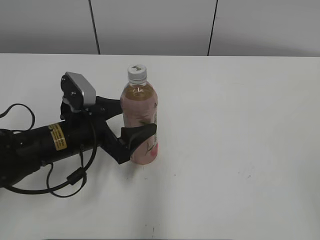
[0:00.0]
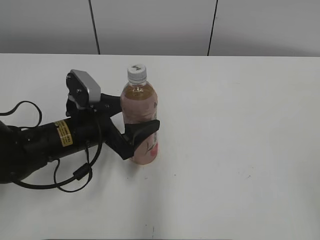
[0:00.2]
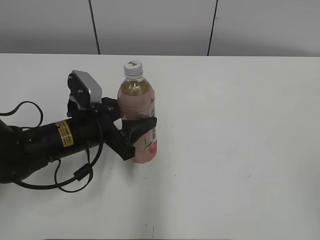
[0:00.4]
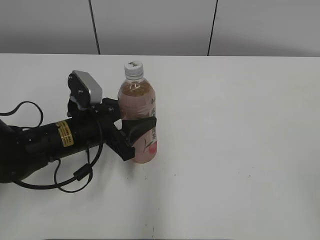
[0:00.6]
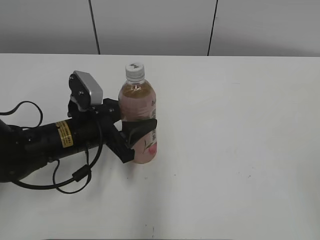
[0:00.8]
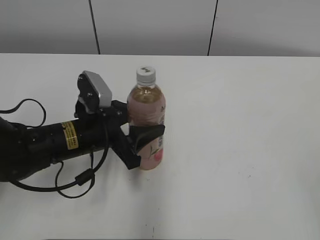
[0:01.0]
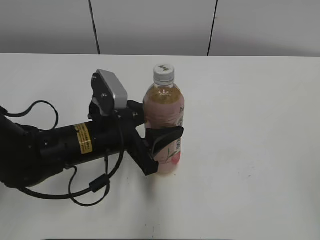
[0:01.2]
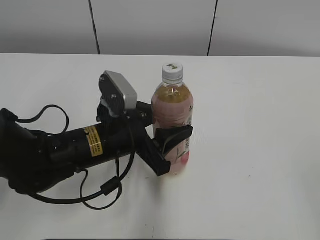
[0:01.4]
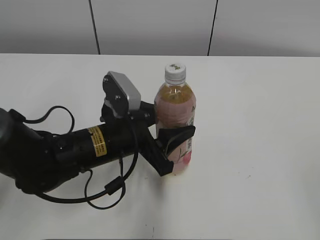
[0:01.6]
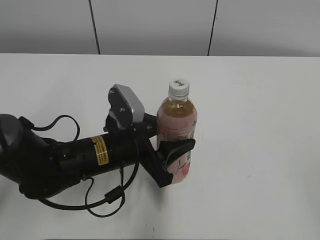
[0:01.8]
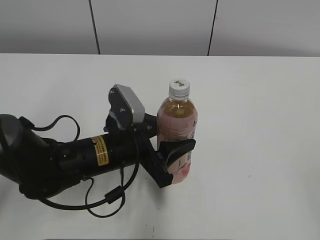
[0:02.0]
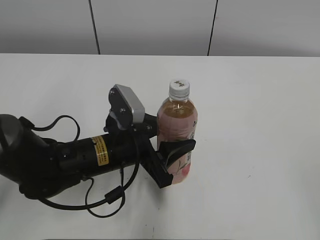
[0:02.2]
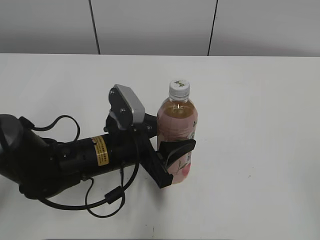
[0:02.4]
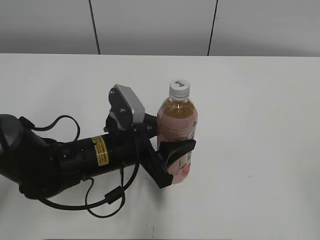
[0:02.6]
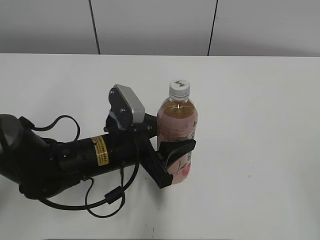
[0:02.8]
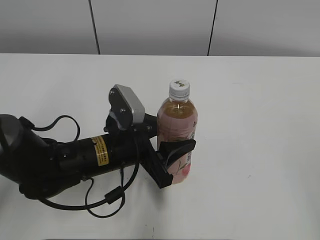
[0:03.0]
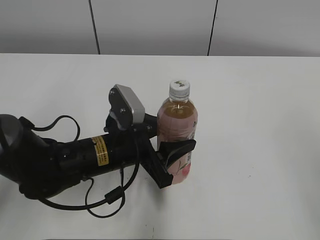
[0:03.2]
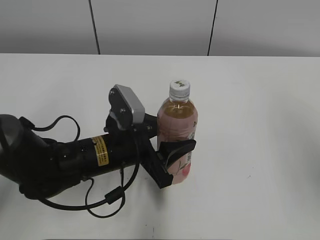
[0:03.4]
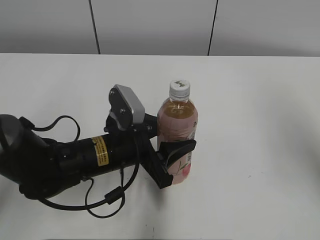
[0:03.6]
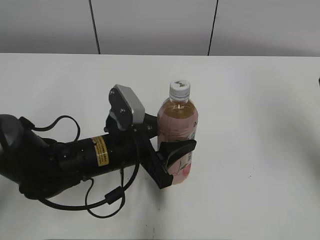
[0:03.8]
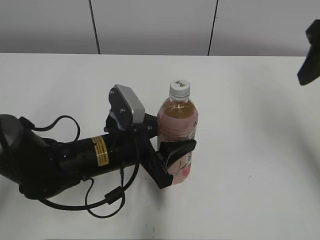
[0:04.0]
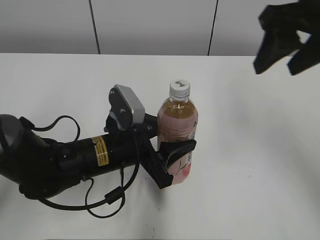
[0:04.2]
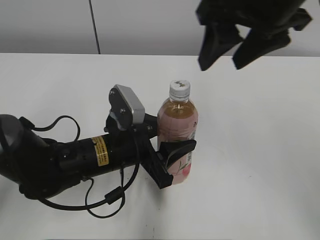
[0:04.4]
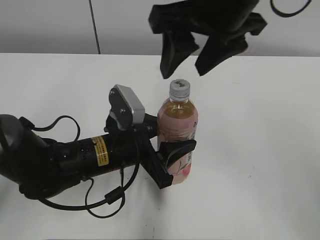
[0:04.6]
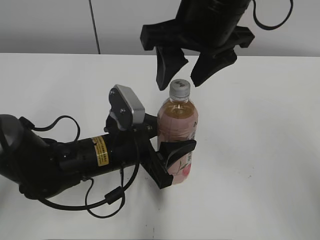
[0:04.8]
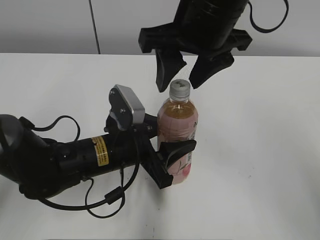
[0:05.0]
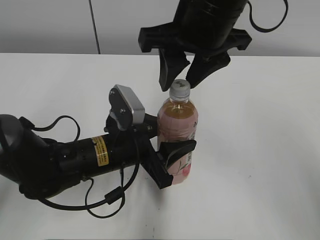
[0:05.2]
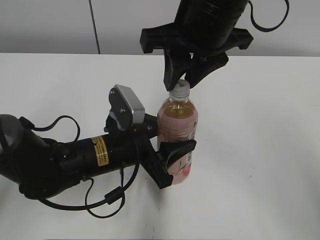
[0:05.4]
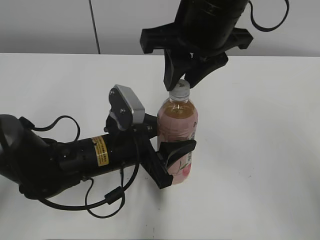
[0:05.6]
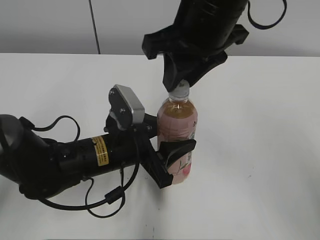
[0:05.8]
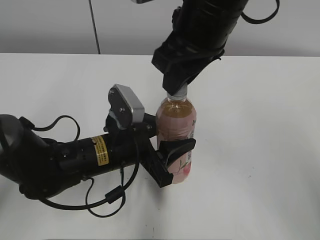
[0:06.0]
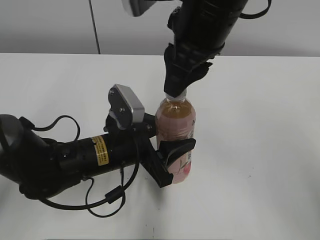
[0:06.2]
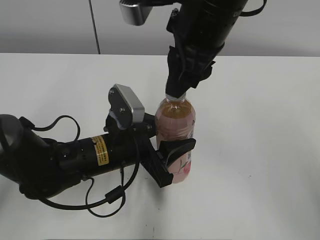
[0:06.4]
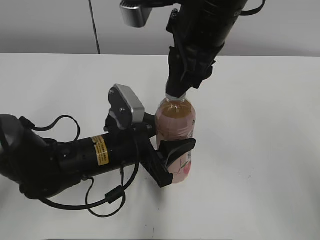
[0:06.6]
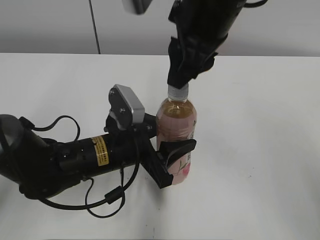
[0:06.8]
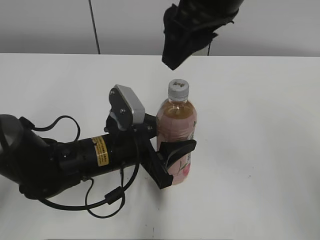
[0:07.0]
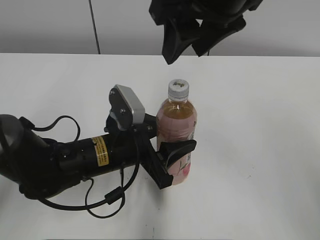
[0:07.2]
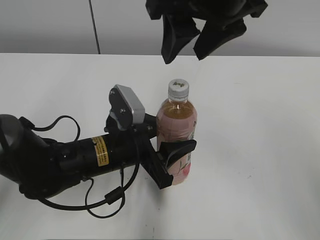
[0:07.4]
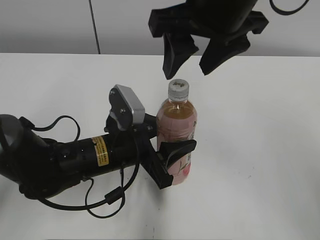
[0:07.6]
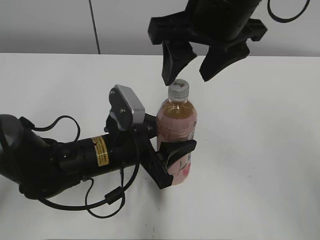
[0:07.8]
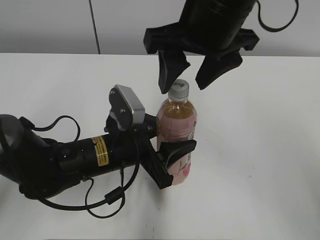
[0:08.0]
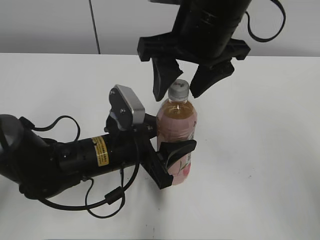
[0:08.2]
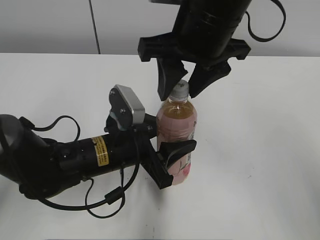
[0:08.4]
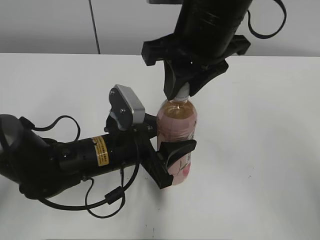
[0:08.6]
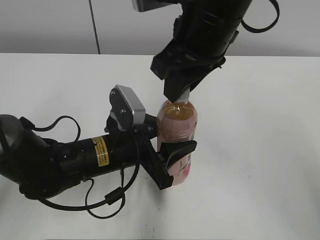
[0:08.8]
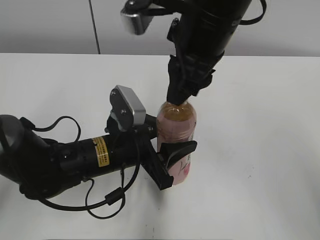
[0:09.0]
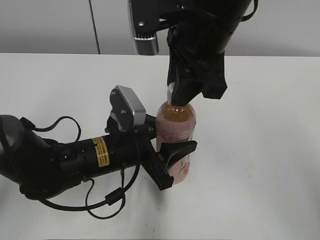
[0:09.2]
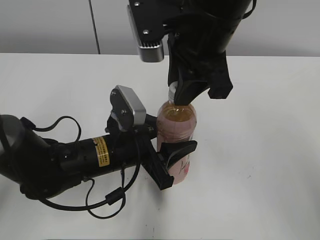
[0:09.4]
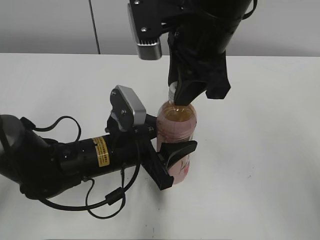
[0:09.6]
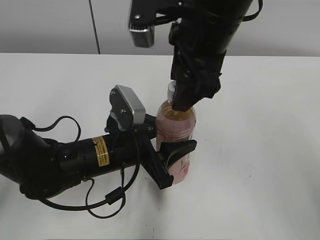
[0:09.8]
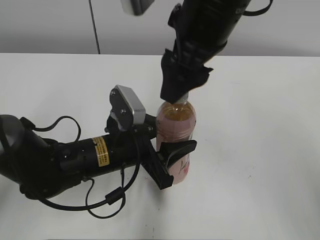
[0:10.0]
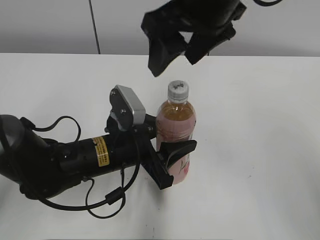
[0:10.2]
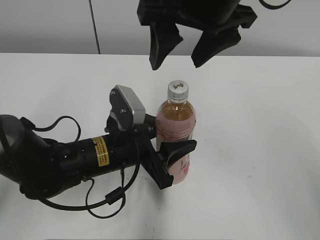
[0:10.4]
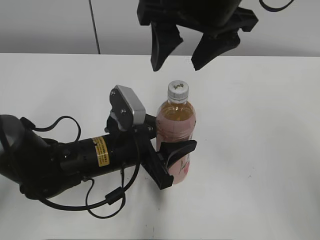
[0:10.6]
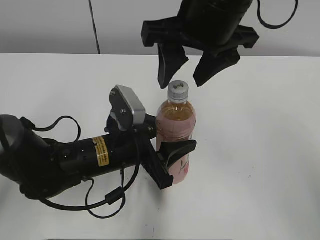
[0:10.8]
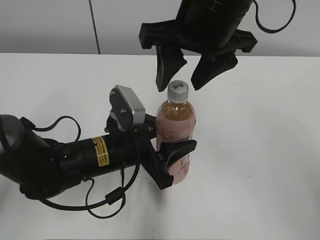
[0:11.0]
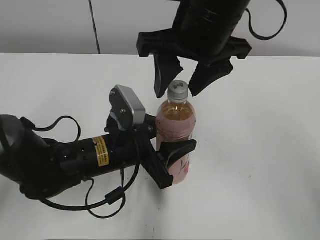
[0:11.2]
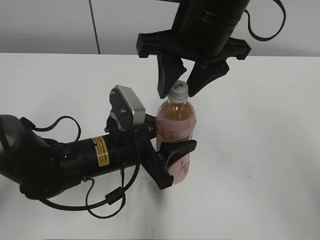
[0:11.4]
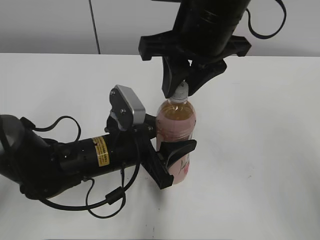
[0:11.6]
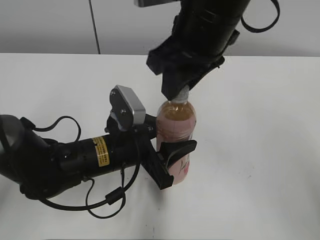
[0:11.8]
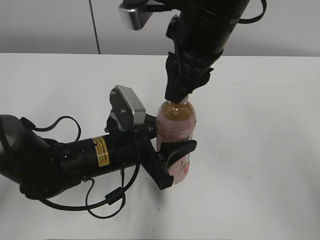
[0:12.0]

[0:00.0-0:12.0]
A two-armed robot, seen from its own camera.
Step, 0:00.8 to 0:05.0: Move the Peach Oolong Tea from left to right.
0:00.0 to 0:01.6: The left gripper goes approximately 5 cm to the right, and closes its fingers.
0:01.6 to 0:03.0: The grippers make only small movements.
0:03.0 to 0:04.4: The right gripper is displaced forward and to the left by approximately 35 cm.
0:04.4 to 0:06.0: The right gripper is displaced to the left by roughly 5 cm, and closes its fingers.
0:06.0 to 0:07.6: The right gripper opens up.
0:07.6 to 0:09.0: The right gripper closes up.
0:09.0 to 0:10.4: The right gripper opens up.
0:10.4 to 0:12.0: The right gripper closes.

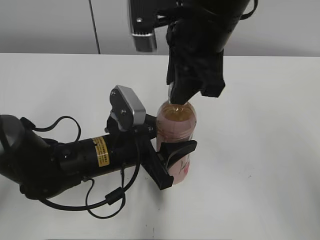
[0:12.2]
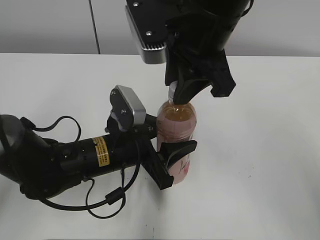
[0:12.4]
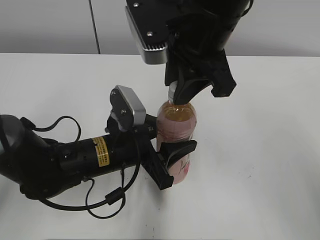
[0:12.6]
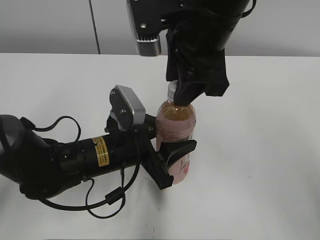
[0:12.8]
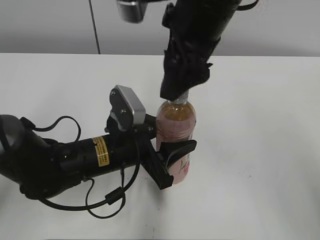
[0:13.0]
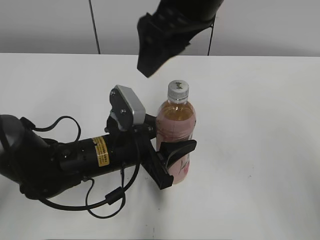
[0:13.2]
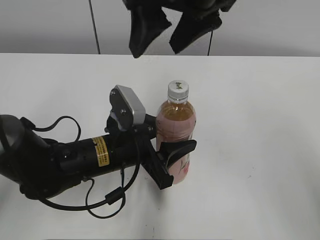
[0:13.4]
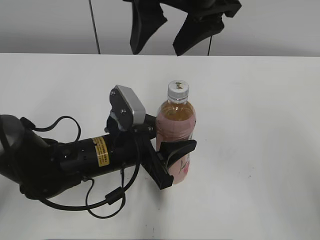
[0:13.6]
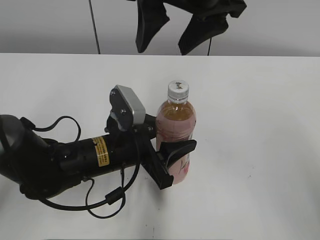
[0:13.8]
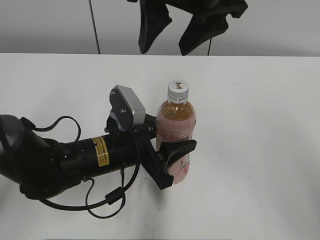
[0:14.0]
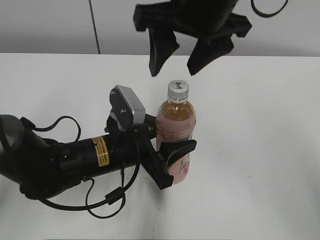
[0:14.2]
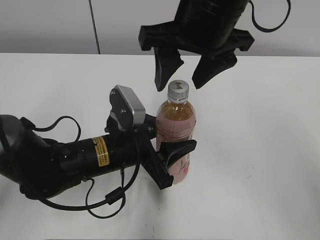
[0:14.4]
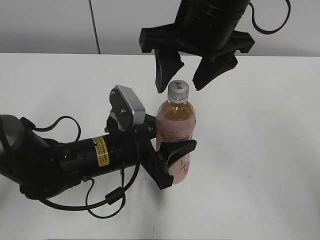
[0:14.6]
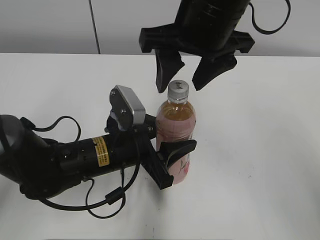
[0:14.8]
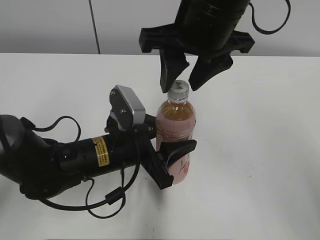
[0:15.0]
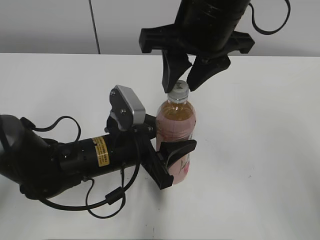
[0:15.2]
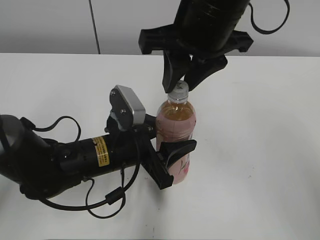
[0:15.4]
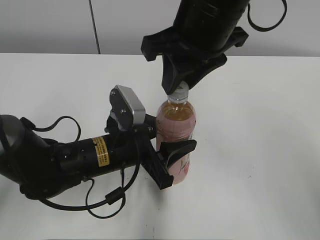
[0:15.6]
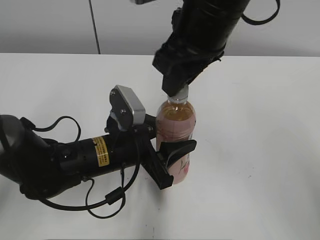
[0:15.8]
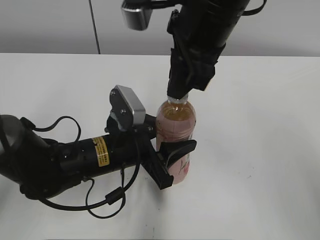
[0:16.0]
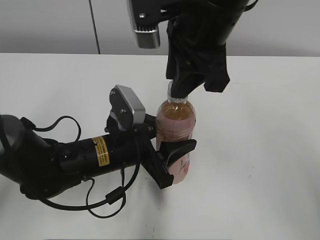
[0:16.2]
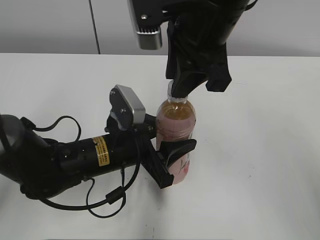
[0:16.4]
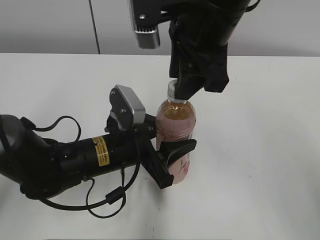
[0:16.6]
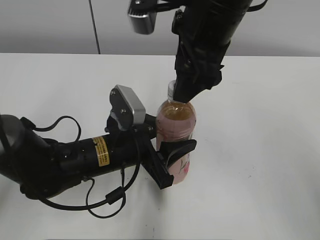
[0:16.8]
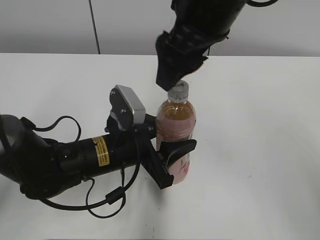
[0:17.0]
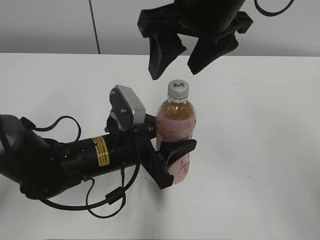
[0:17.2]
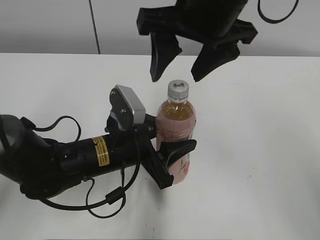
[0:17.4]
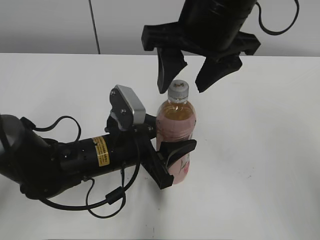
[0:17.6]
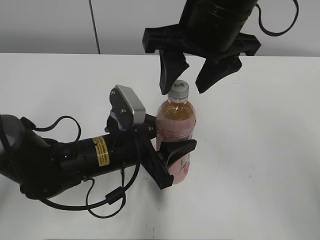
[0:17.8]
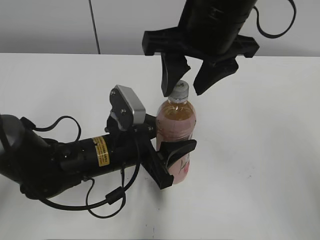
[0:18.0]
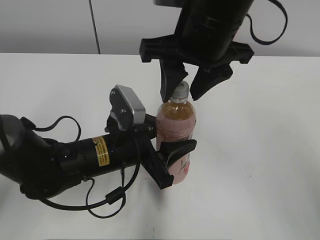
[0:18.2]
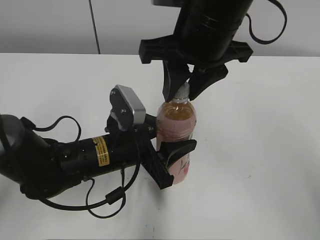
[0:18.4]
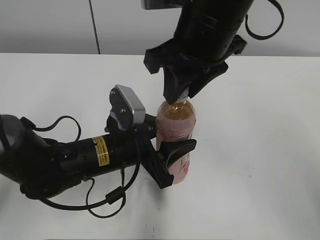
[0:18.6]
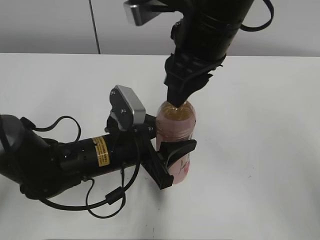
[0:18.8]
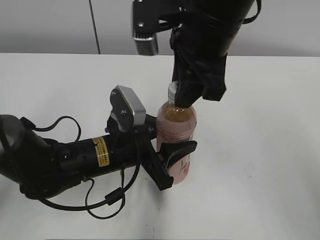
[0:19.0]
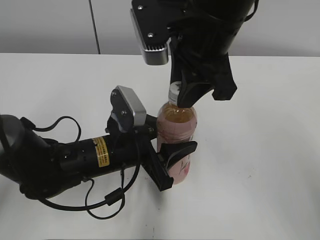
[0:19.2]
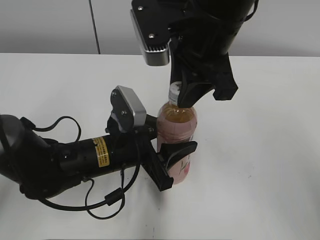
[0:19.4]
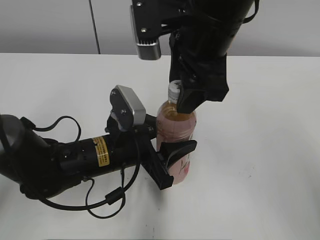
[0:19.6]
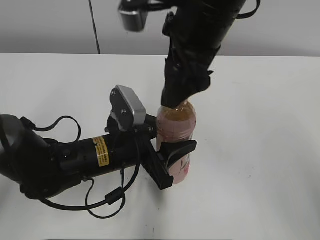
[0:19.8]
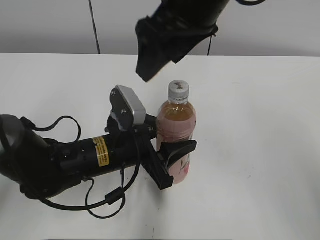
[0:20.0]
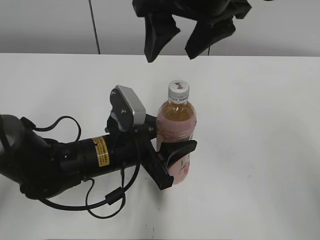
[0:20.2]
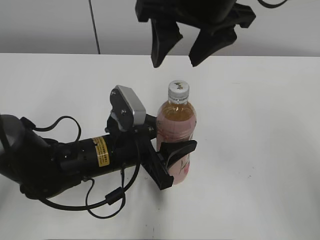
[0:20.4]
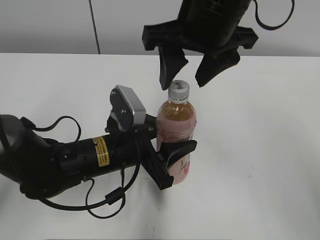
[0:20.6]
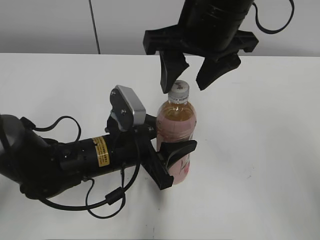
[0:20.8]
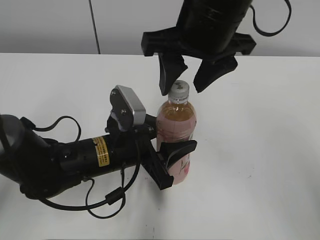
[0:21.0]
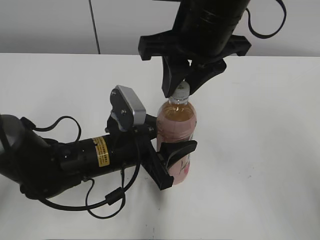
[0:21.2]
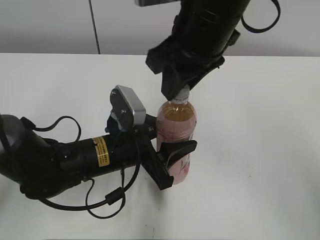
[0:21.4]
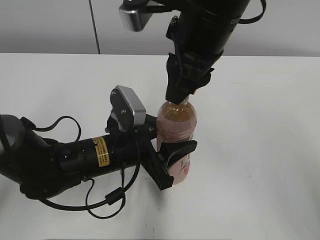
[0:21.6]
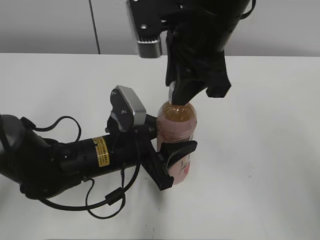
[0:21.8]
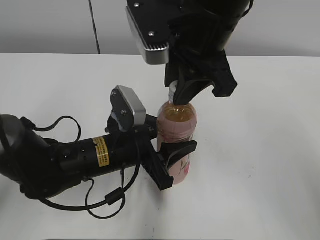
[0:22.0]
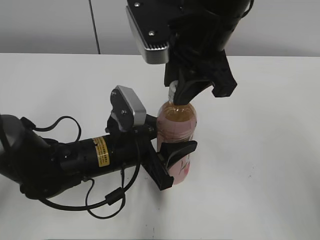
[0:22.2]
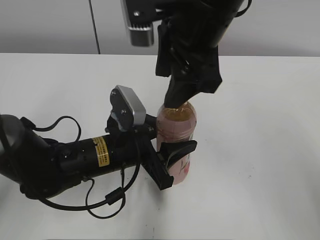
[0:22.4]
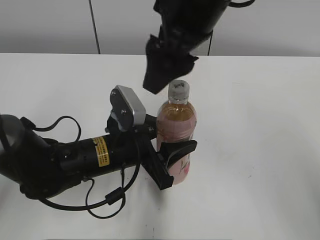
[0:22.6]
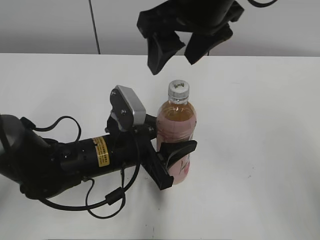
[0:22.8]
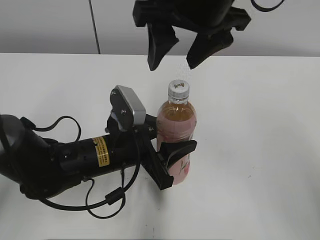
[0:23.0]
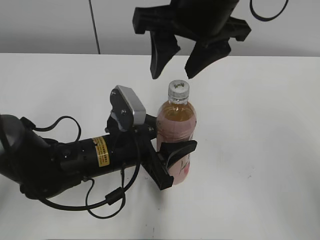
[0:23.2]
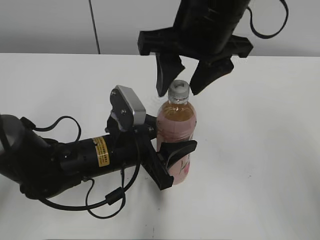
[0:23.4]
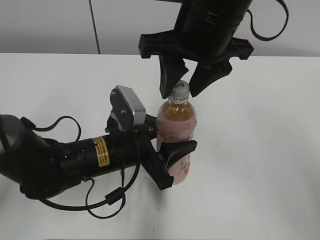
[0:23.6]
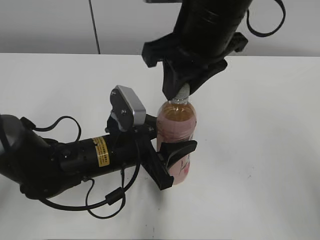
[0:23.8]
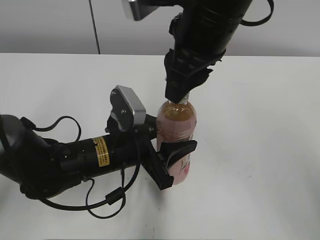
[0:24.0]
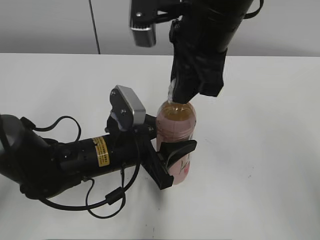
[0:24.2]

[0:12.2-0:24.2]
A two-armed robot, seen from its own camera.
0:12.2 to 0:13.8: The right gripper moves upward, approximately 5 cm, and opens up.
0:13.8 to 0:15.2: The right gripper closes its fingers.
0:16.6 to 0:18.2: The right gripper opens and closes again.
0:18.2 to 0:19.8: The right gripper opens its fingers.
0:19.8 to 0:21.2: The right gripper closes its fingers.
0:21.2 to 0:22.6: The right gripper opens its fingers.
0:22.6 to 0:24.2: The right gripper closes.
